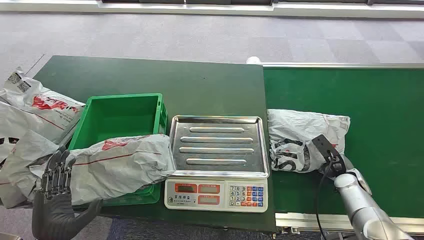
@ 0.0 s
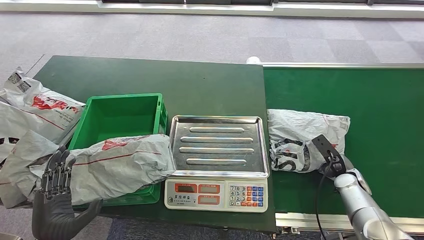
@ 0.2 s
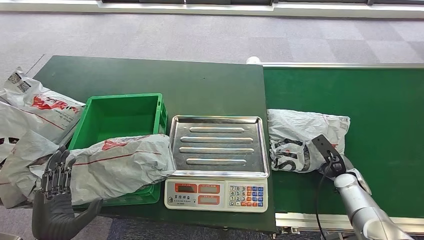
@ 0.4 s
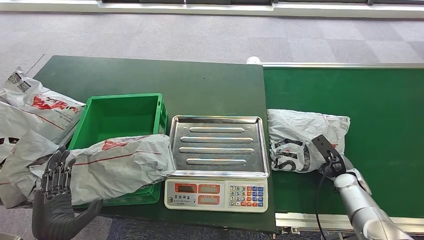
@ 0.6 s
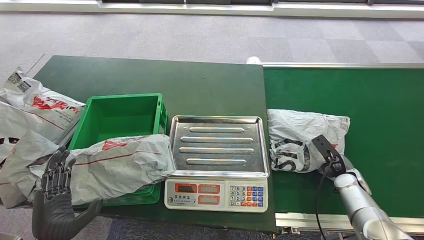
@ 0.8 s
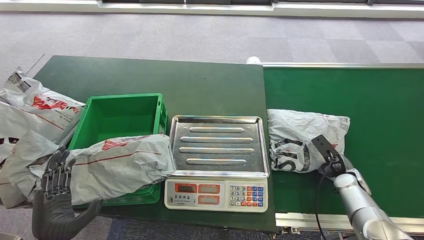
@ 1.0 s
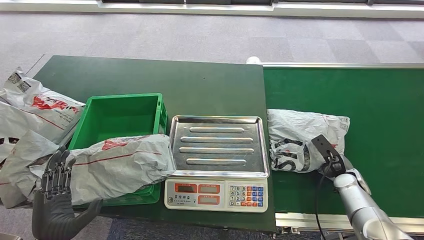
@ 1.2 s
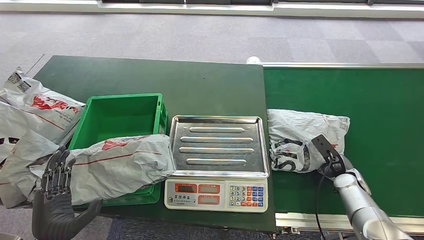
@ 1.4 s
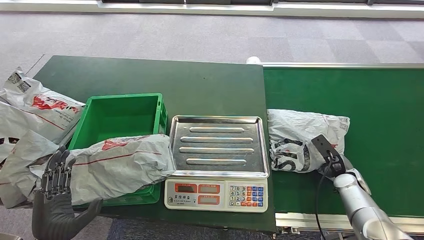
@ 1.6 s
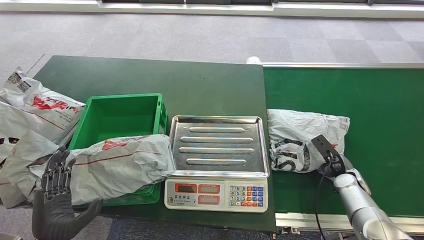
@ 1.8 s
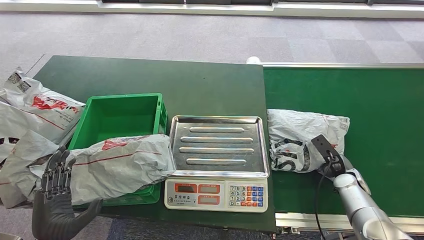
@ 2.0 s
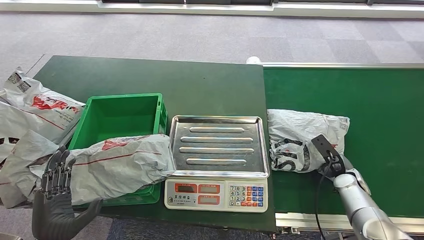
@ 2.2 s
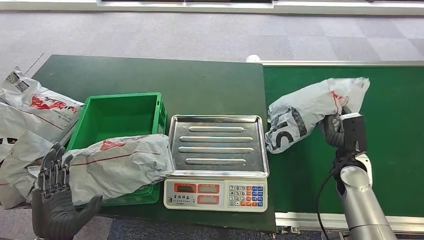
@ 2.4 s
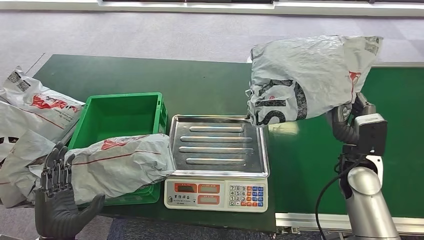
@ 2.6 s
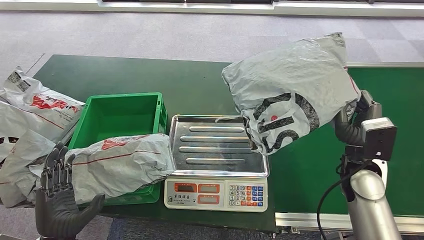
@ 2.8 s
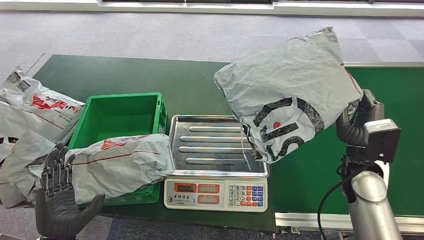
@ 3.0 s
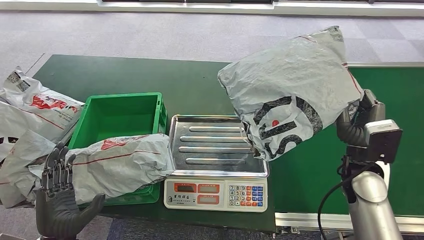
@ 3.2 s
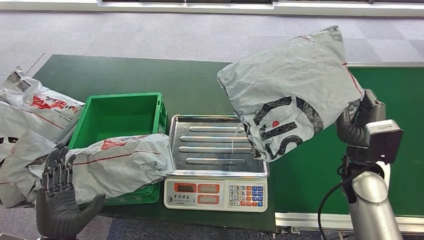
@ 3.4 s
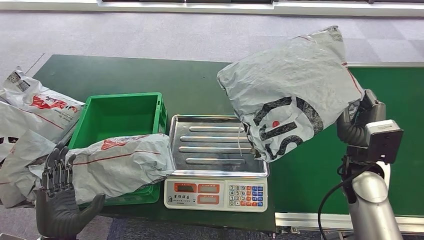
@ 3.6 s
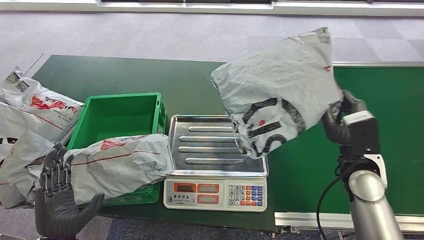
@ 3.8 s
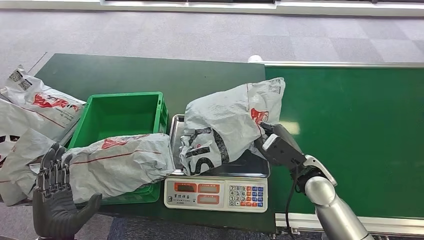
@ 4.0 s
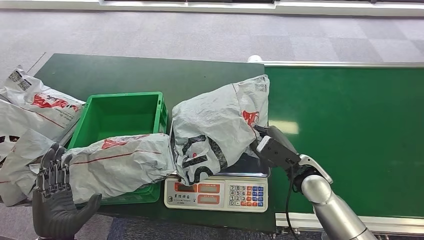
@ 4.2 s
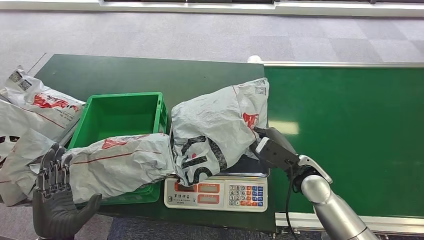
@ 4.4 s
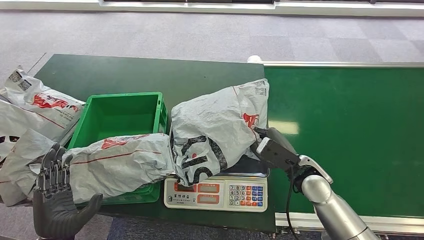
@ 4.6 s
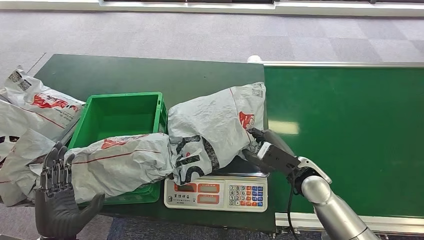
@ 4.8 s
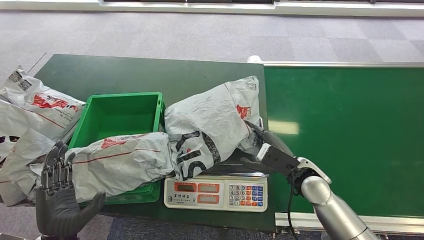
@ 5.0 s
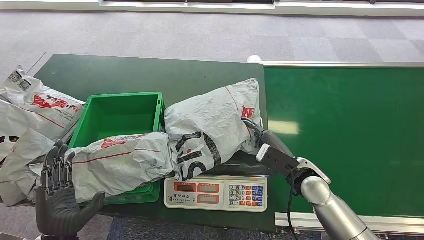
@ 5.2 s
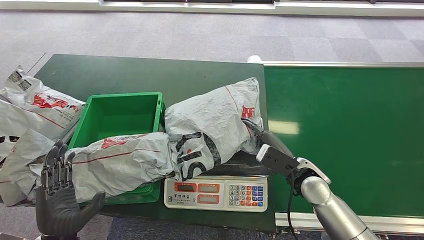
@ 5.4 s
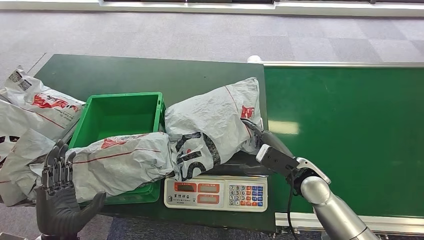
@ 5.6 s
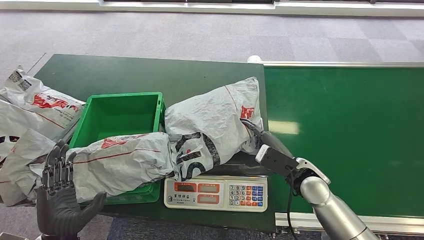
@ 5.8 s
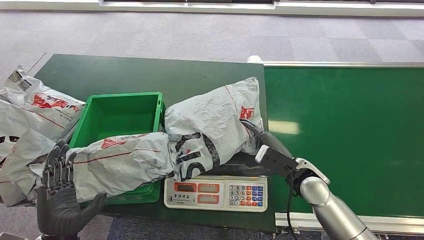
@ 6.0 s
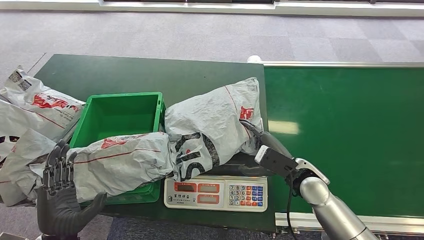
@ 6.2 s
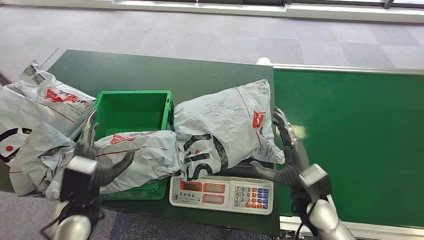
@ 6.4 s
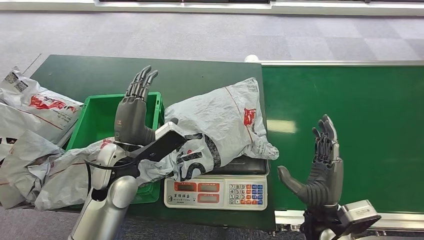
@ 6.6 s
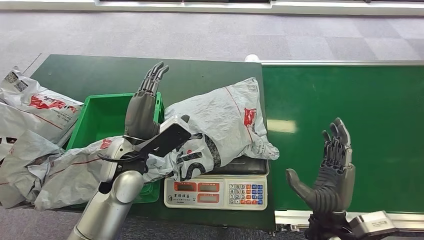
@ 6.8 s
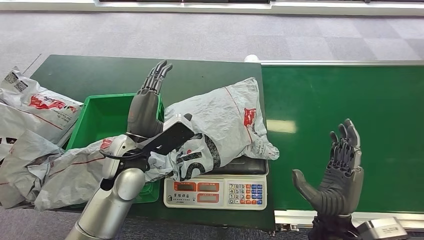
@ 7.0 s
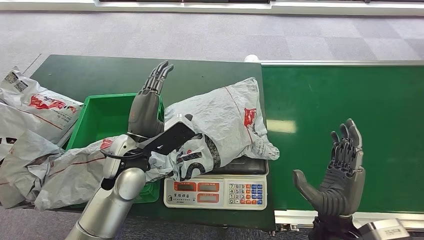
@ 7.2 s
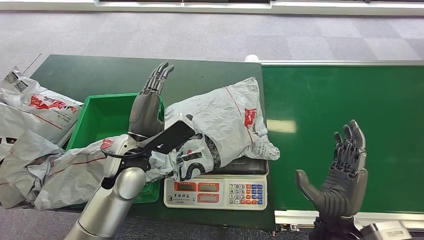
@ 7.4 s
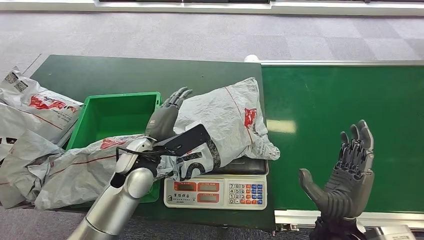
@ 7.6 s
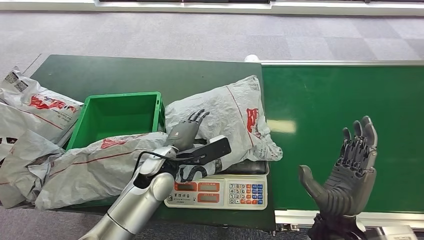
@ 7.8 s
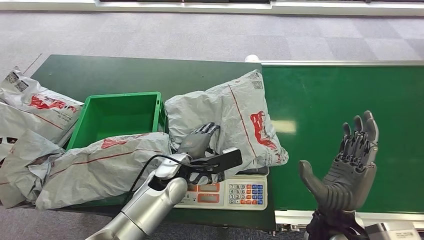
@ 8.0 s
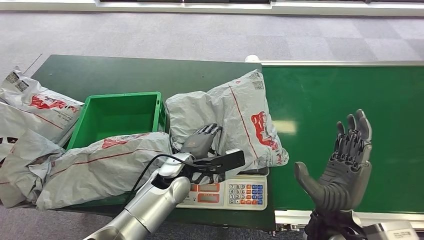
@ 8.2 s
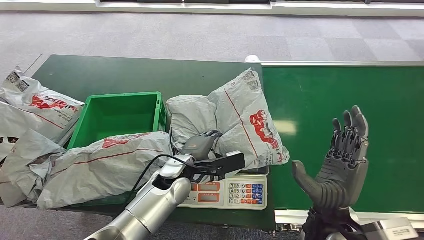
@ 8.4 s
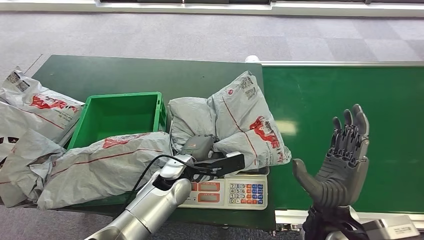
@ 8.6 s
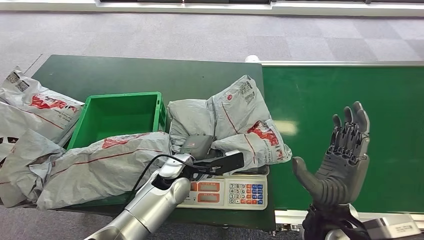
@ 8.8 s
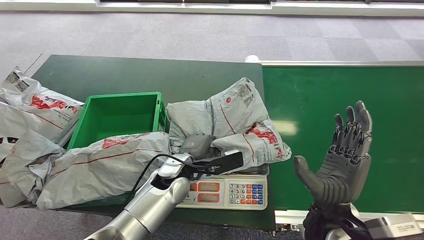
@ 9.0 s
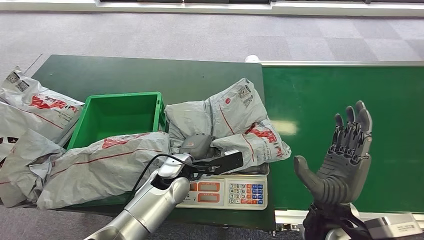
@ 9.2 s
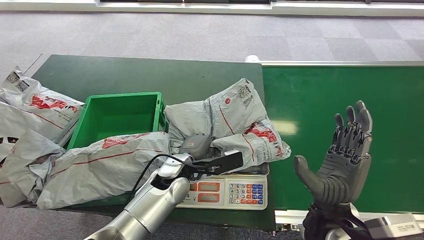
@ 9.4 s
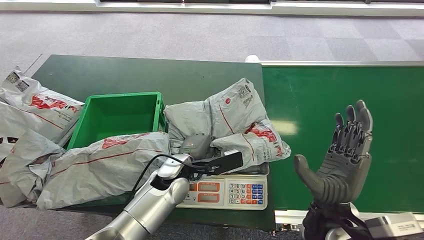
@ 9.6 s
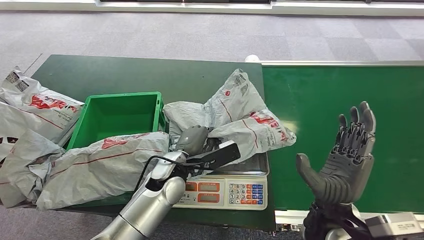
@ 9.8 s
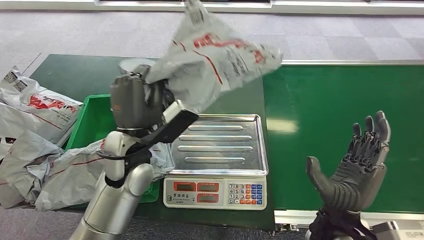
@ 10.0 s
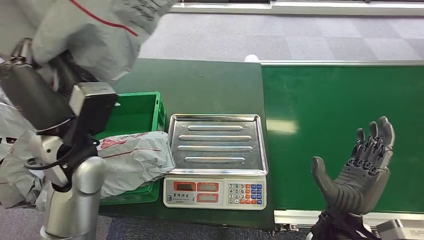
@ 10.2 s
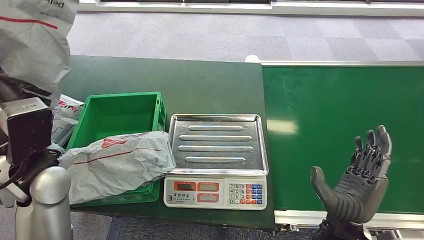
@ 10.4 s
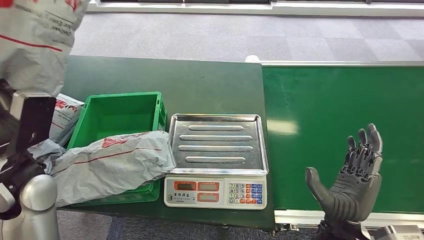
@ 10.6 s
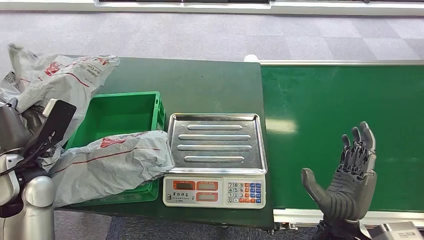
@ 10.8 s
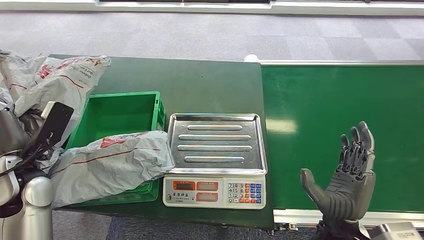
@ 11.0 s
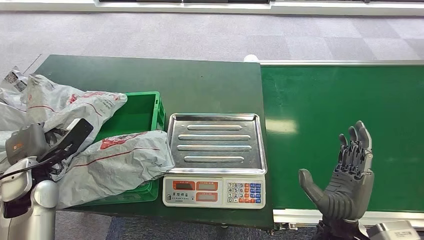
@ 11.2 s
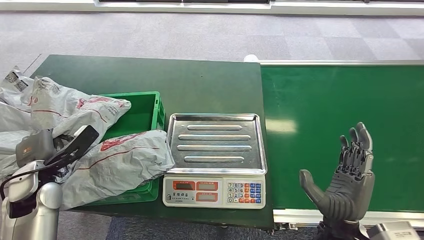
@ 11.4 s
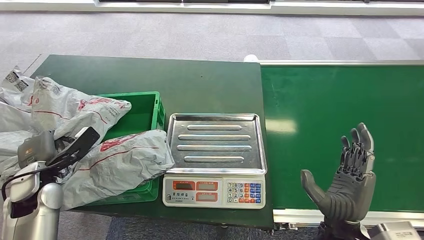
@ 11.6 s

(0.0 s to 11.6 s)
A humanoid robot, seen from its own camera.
Task of the whole recording: Weigh the package on the weighing device and place it in the left basket.
Step, 0.0 s - 2.4 s: Pick up the package from the conveyor belt.
Step, 2.6 s - 4.4 s: Place the package onto the inbound machine.
Step, 4.6 s - 10.4 s: Pick up the package from the inbound machine.
Step, 10.6 s - 11.6 s: Place the package into the parcel locker.
4.4 s - 5.8 s: There are only small adjustments of the hands.
